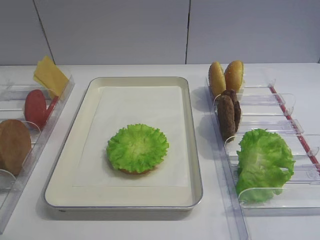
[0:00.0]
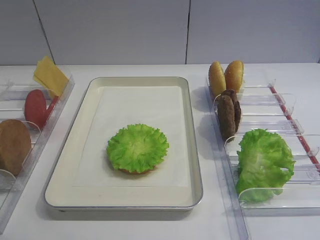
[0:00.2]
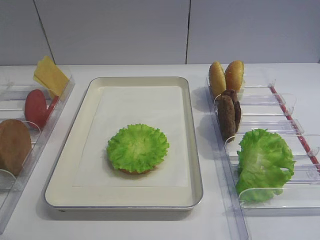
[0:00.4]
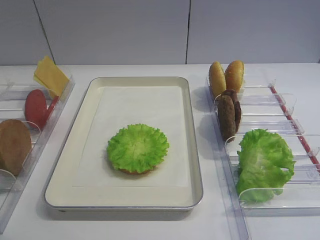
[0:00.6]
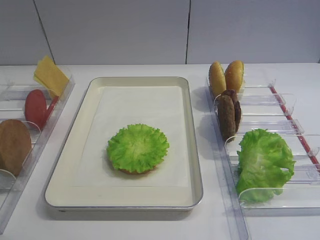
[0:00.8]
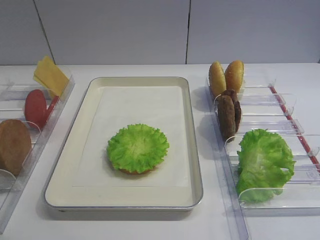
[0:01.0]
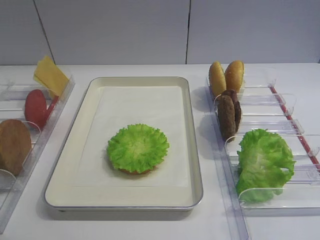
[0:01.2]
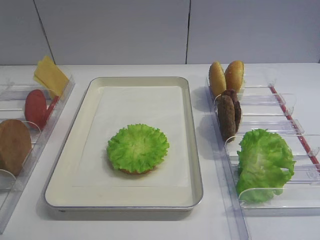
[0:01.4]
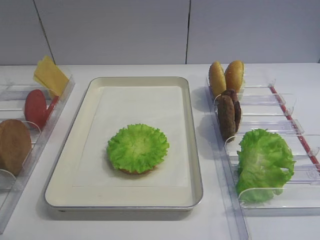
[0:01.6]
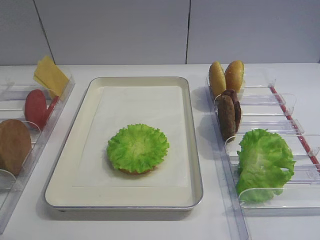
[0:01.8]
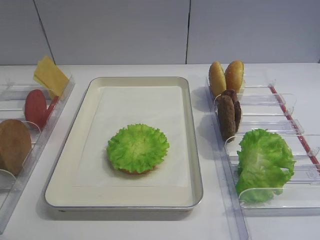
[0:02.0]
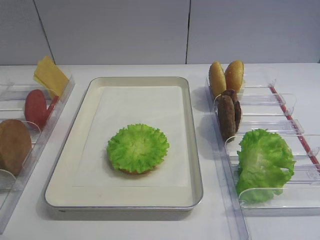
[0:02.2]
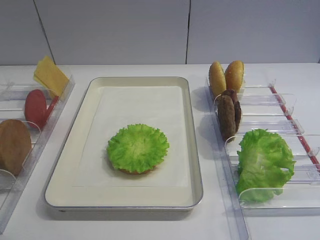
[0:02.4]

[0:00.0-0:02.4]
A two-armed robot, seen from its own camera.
0:00.0 to 0:02.4: Both grippers stay about where they are.

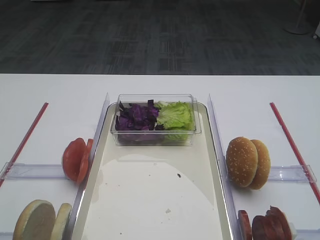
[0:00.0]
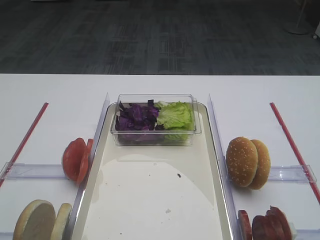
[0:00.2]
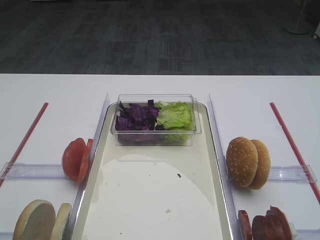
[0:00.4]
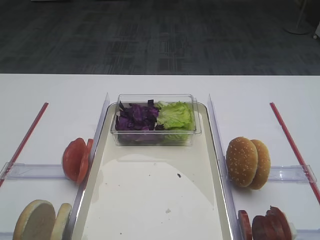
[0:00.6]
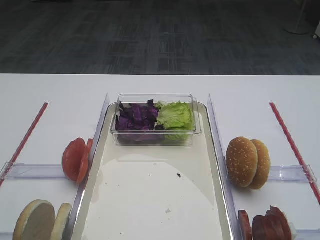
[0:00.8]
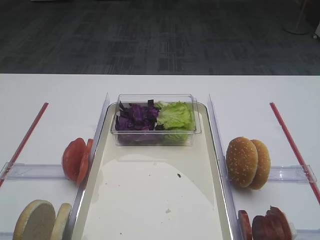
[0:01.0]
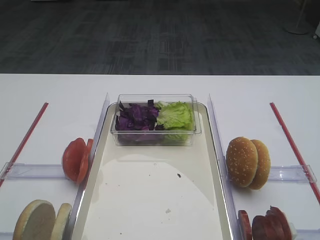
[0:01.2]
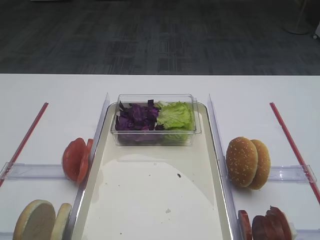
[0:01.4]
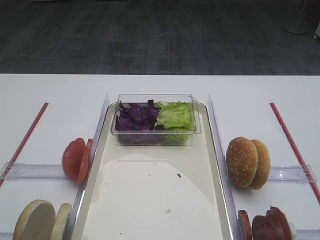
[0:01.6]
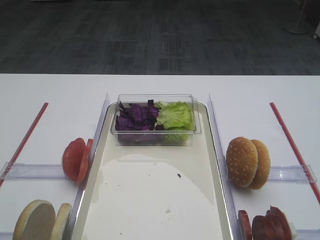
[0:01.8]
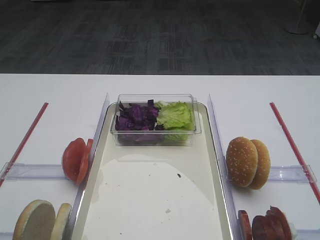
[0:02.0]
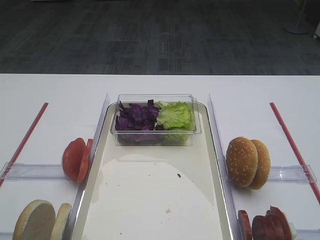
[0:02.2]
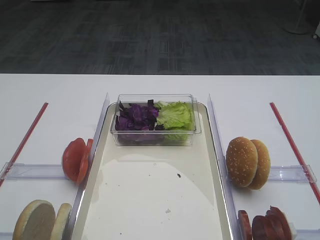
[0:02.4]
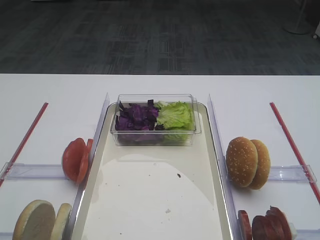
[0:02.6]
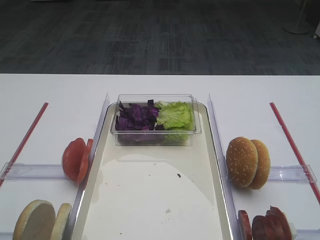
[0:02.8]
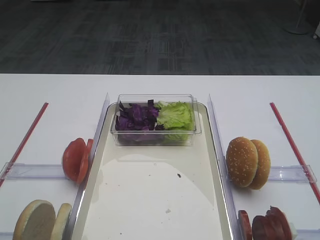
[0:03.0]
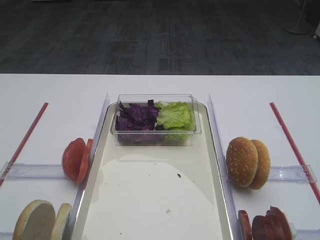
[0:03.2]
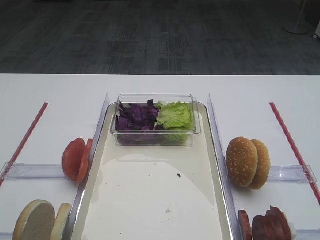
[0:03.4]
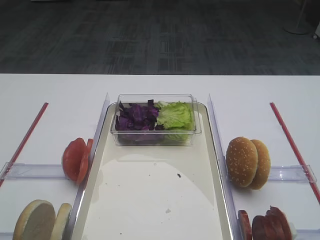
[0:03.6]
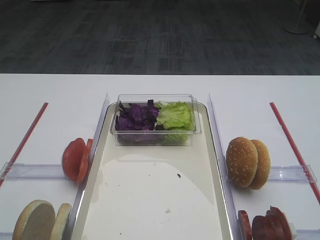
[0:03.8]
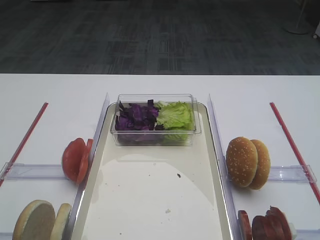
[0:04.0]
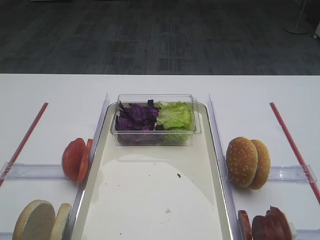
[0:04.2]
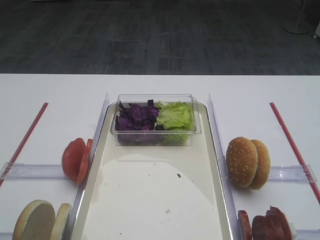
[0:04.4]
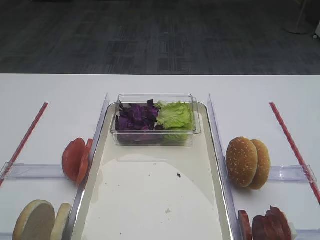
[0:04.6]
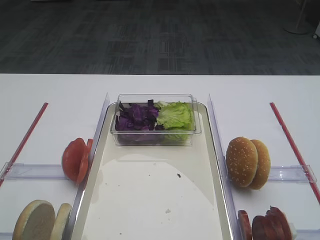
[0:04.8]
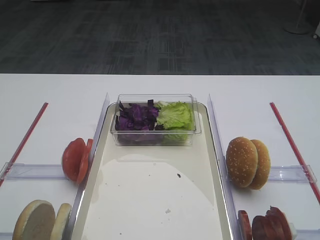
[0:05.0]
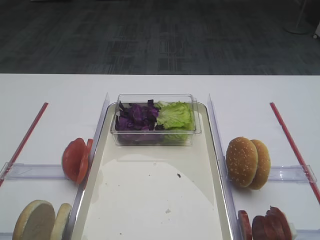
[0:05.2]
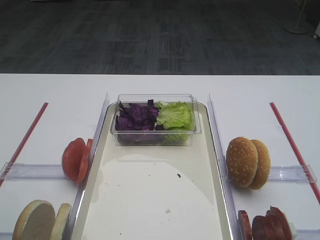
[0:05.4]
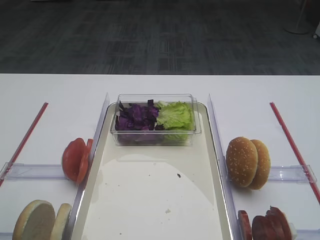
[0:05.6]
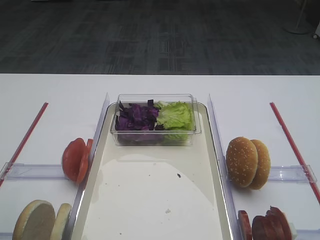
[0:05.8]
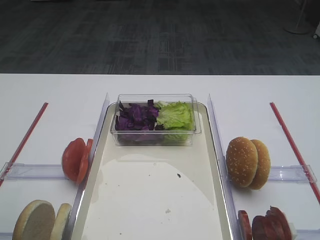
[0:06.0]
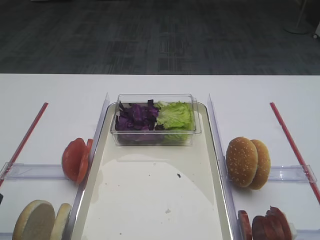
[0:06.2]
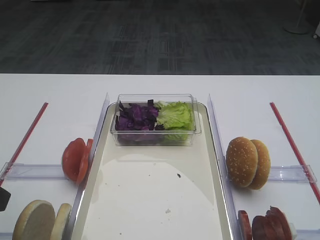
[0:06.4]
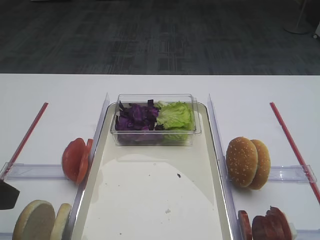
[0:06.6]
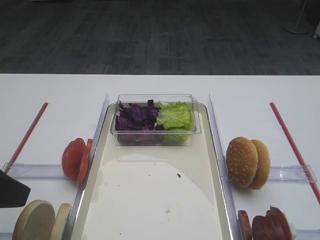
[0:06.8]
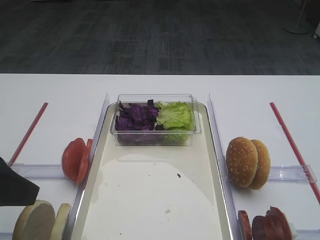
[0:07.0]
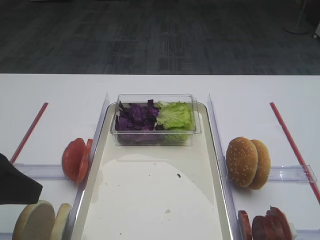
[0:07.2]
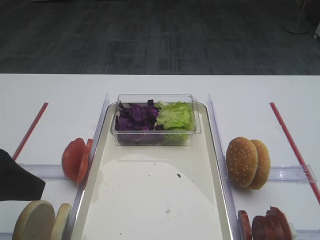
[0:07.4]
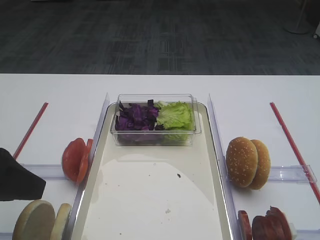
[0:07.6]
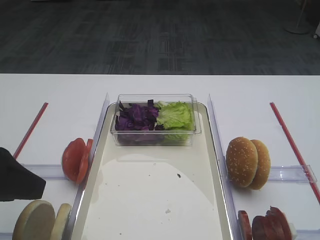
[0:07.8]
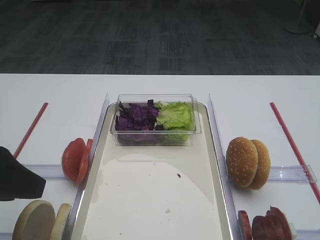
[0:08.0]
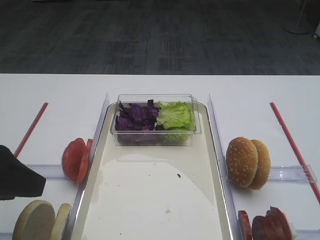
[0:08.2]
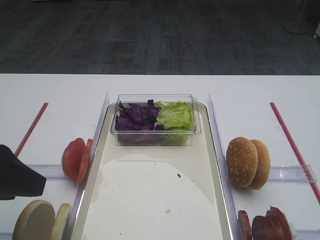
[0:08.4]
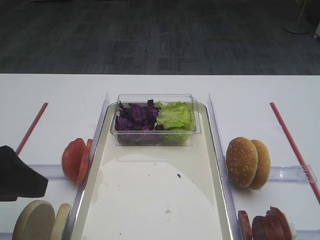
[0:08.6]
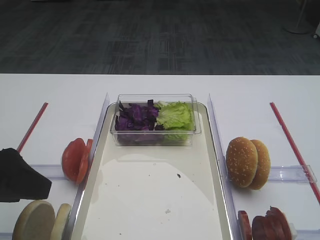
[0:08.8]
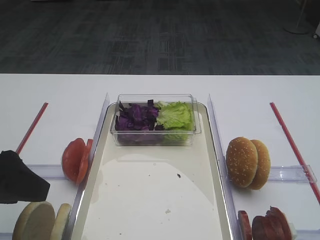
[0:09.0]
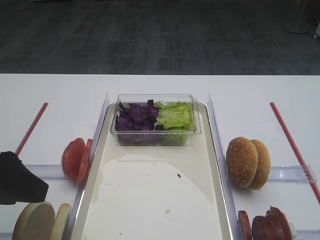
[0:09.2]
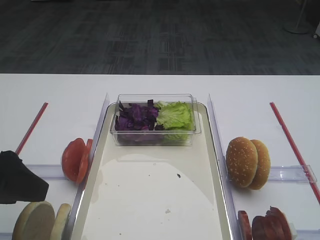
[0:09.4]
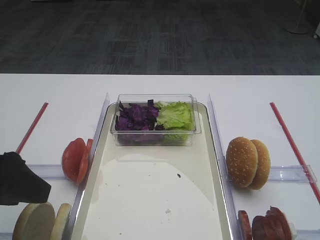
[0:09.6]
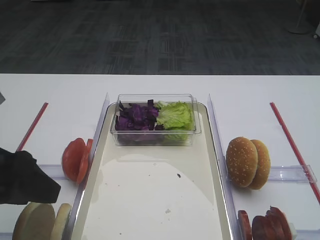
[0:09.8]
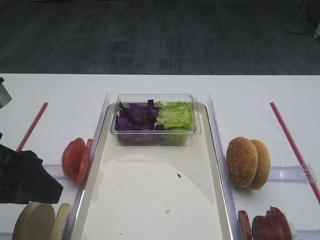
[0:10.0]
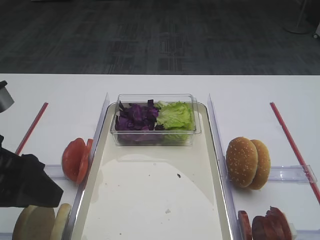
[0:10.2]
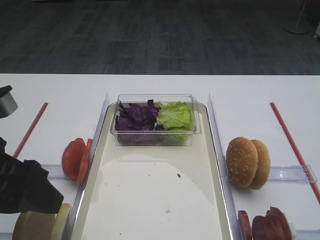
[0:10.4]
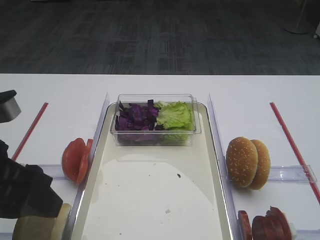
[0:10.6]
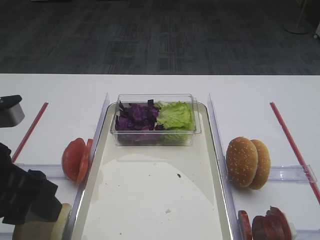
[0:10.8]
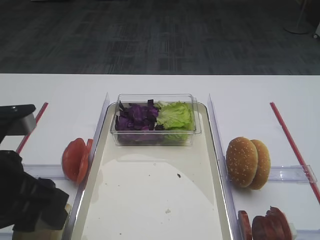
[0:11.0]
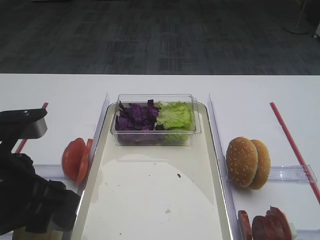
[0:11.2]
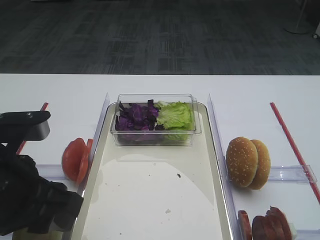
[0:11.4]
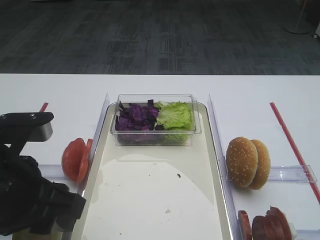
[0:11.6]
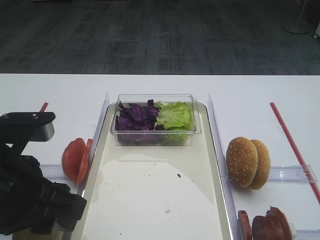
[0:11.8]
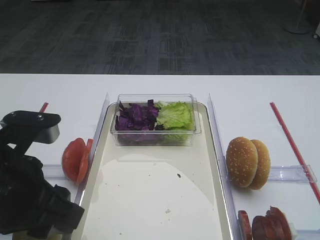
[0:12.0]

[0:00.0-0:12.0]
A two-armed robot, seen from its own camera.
0:01.6 to 0:03.0: Neither gripper changes place.
0:06.0 to 0:07.6: The grippers move only a little.
0:07.6 to 0:09.0: The two grippers keep their place.
0:09.0 to 0:10.4: The grippers move only a little.
0:10.4 to 0:12.0: The grippers stay close to where they were, moving slightly.

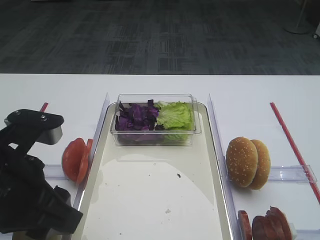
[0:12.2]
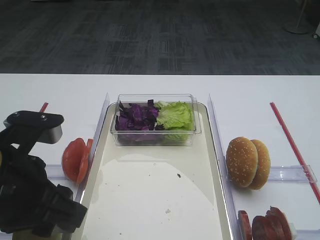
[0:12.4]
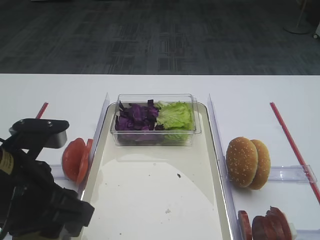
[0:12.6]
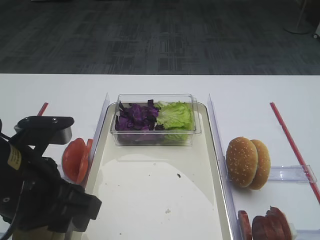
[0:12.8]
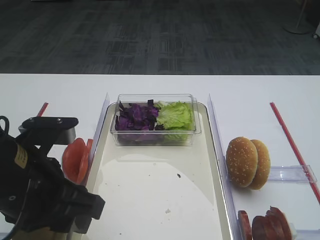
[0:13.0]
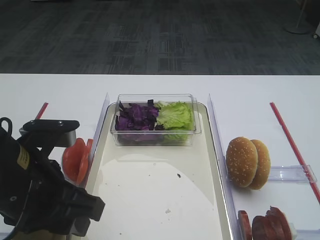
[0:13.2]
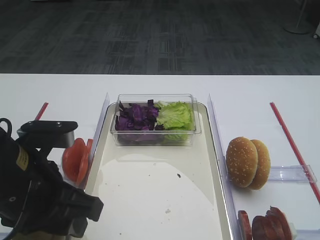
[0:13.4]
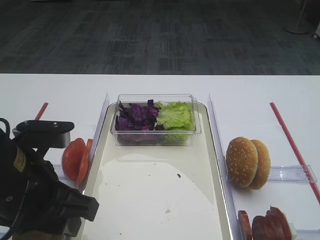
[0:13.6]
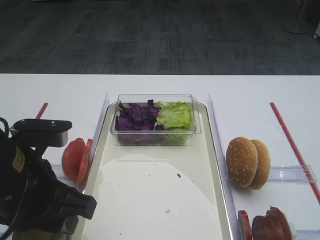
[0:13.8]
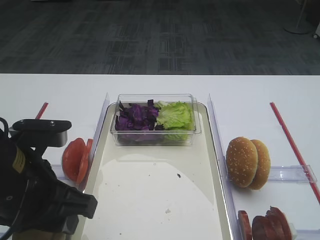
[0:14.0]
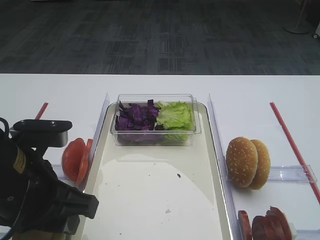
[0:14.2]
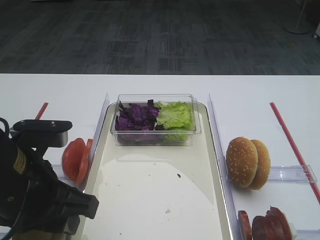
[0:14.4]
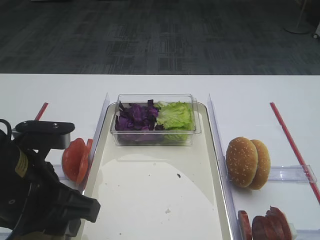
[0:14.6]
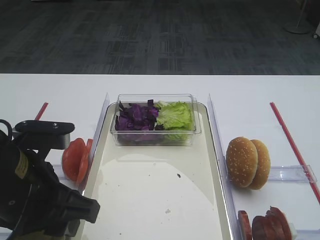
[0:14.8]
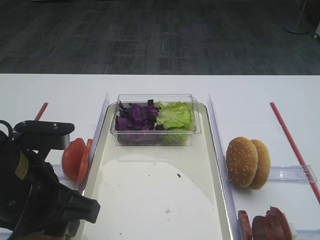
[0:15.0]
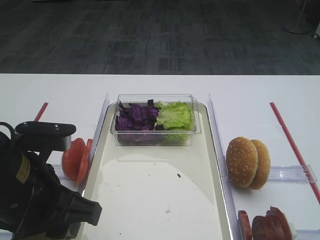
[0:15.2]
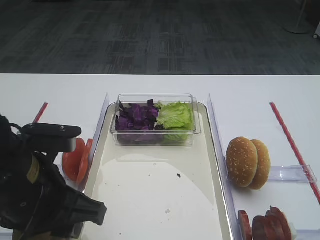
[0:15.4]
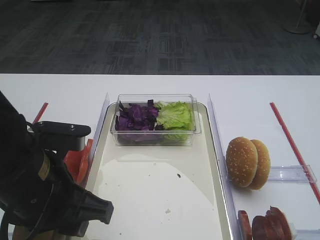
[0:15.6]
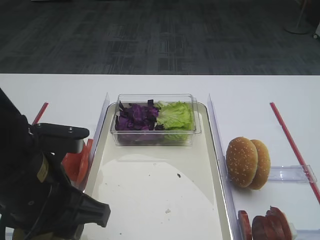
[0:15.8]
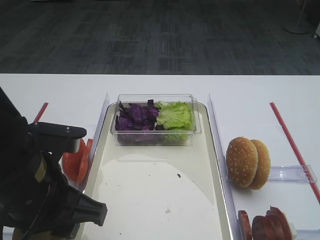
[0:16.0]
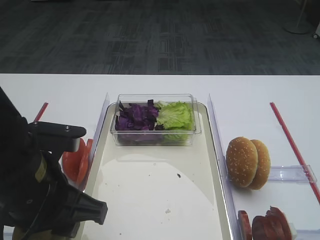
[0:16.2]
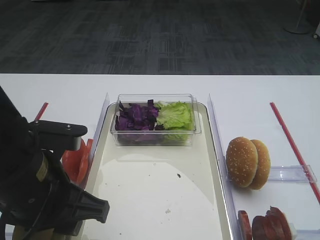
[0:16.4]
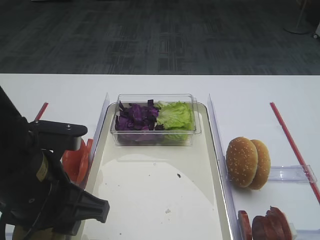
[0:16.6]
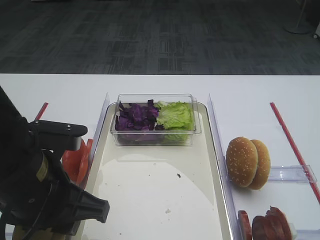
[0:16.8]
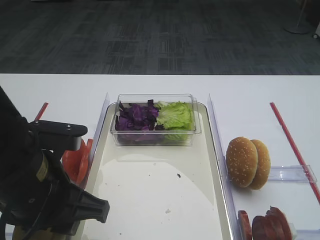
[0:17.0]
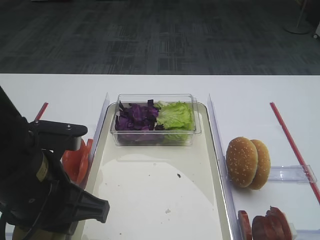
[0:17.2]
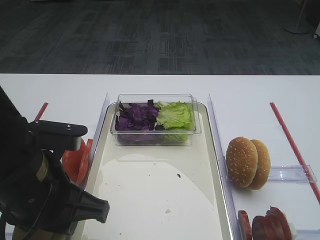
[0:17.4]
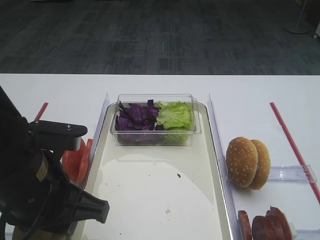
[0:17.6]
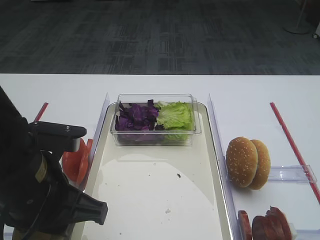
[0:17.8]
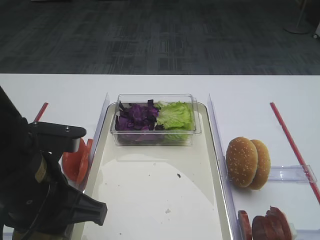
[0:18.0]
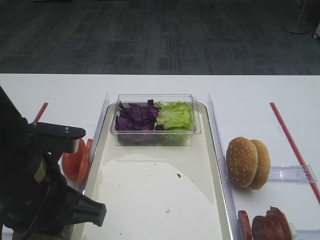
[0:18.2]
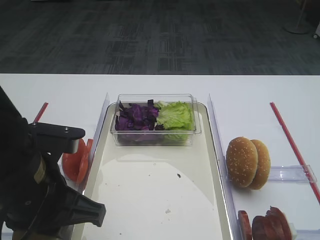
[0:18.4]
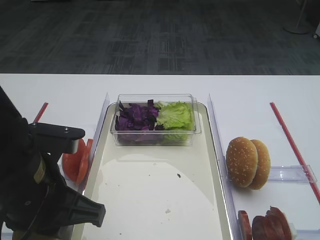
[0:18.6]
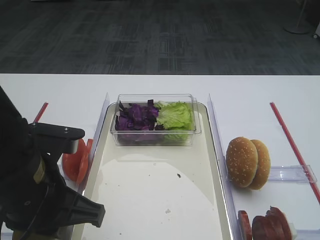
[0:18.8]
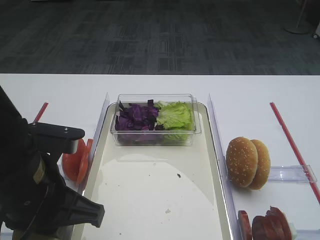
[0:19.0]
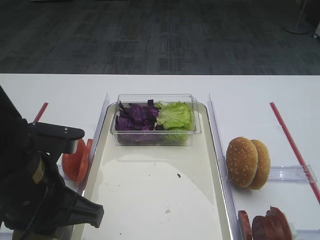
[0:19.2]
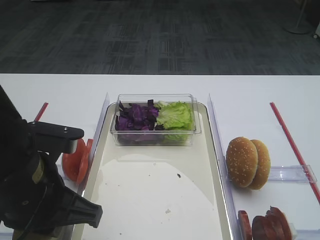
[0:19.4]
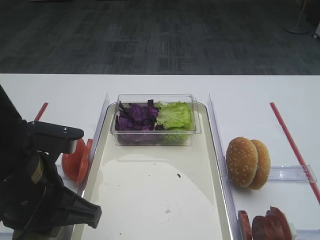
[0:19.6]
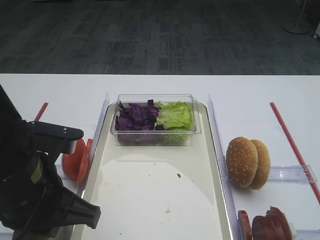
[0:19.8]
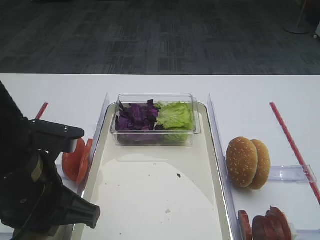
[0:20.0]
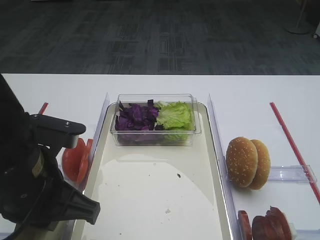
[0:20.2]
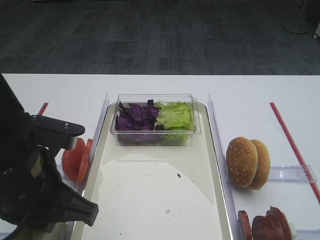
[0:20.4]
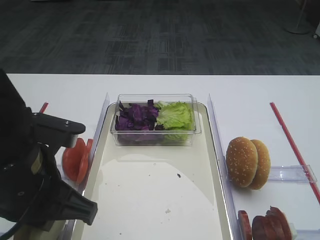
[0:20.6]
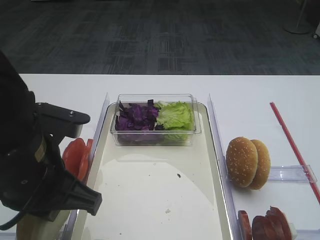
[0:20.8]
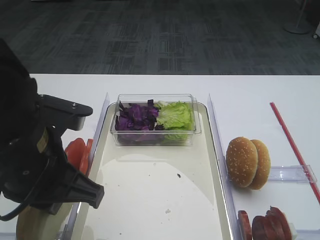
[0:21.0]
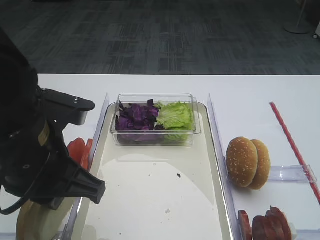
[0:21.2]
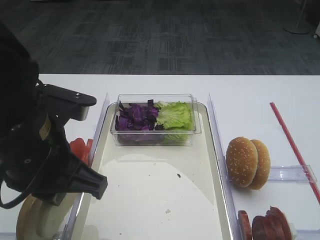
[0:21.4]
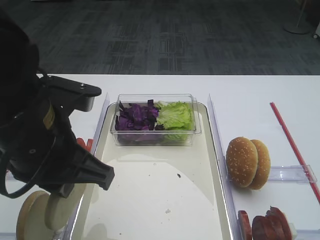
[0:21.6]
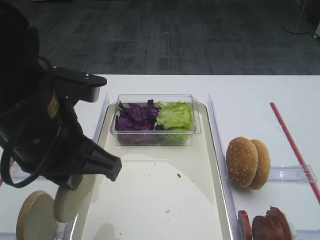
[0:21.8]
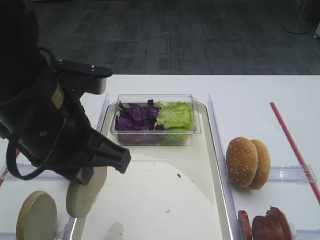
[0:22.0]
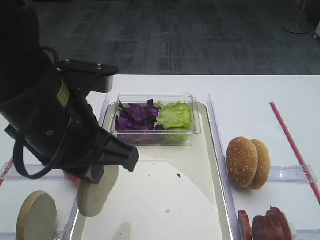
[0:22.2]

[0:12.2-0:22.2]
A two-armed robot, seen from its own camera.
Step, 0:12.2 to 0:21.4: Pick up the bread slice with the left gripper.
0:12.2 to 0:13.6: The grippers move only a little.
0:13.6 to 0:15.0: Both grippers stay put.
0:15.0 to 0:16.4: There are only small adjustments of the grippers.
0:16.4 to 0:18.0: Both grippers stay about where they are.
0:18.0 to 0:19.4: The left gripper closes.
0:19.4 to 0:20.8: There are only small adjustments of the grippers.
0:20.8 to 0:22.2: The left gripper ends up about 5 cm from where it was.
